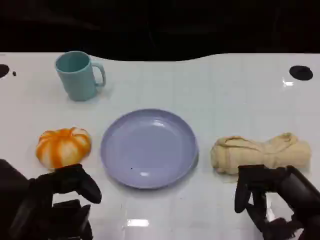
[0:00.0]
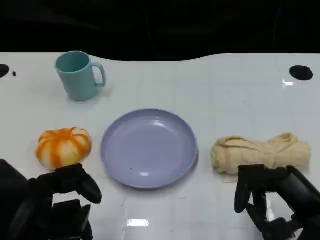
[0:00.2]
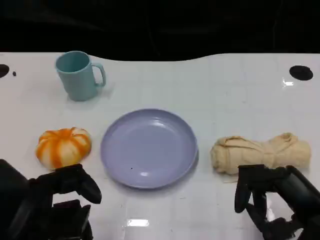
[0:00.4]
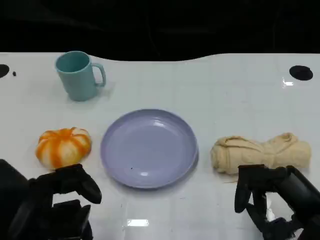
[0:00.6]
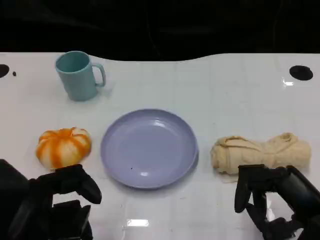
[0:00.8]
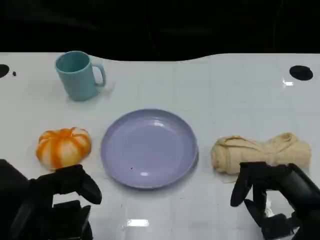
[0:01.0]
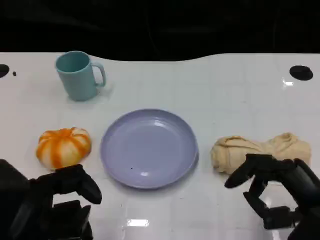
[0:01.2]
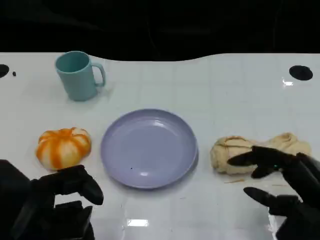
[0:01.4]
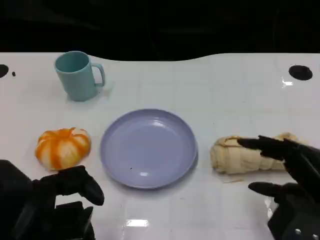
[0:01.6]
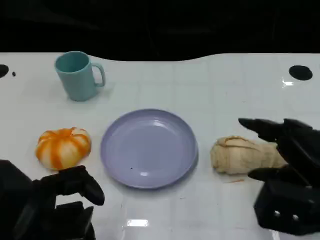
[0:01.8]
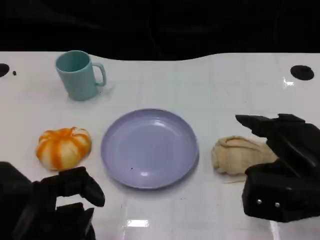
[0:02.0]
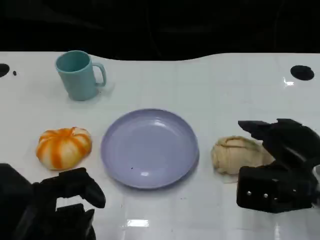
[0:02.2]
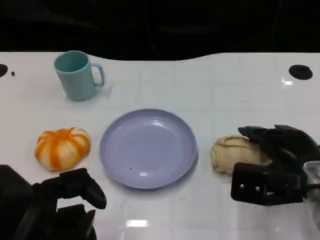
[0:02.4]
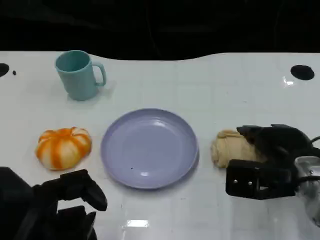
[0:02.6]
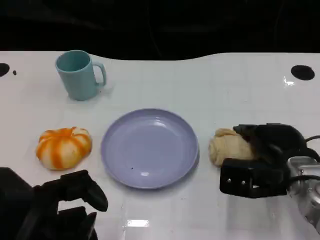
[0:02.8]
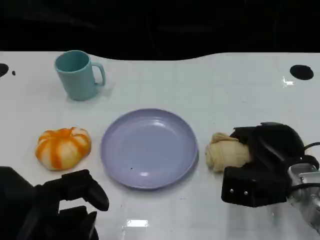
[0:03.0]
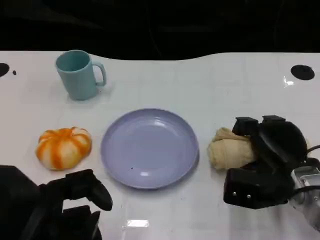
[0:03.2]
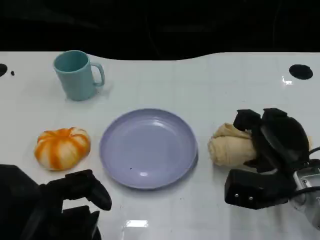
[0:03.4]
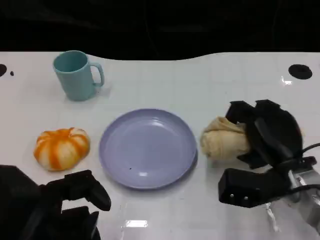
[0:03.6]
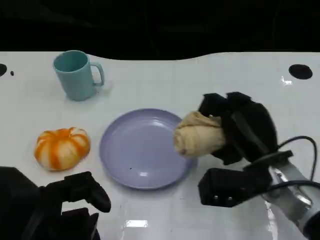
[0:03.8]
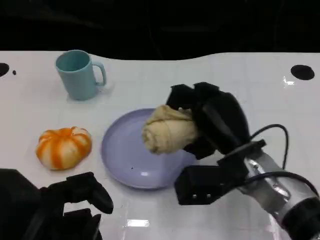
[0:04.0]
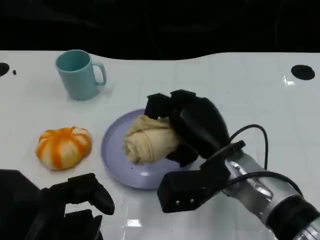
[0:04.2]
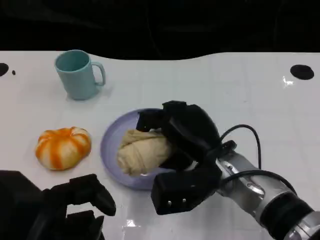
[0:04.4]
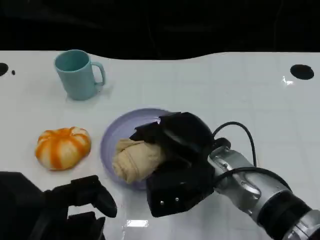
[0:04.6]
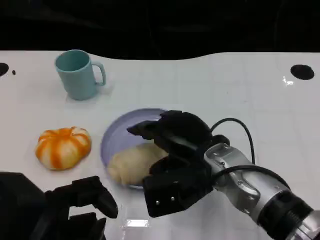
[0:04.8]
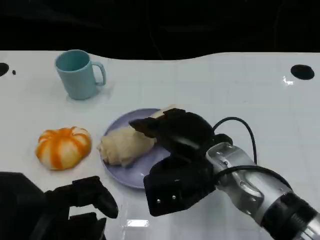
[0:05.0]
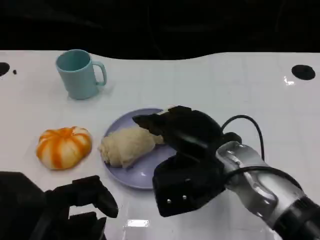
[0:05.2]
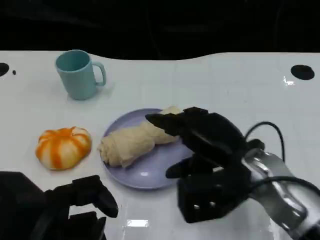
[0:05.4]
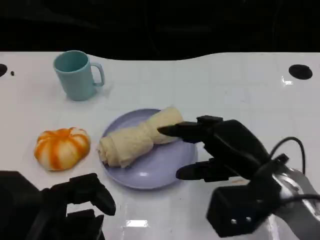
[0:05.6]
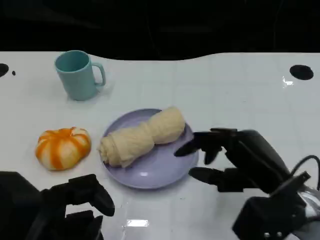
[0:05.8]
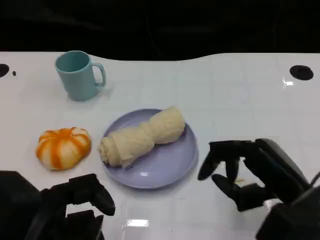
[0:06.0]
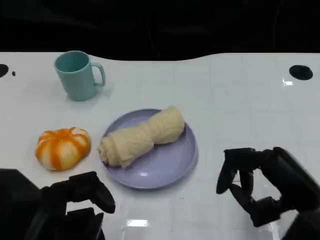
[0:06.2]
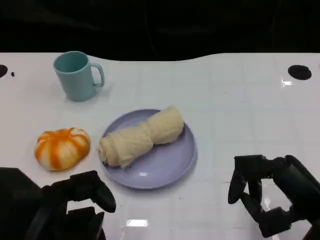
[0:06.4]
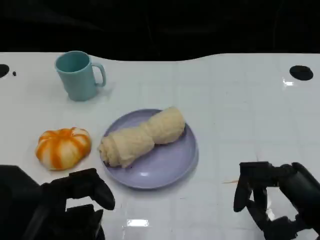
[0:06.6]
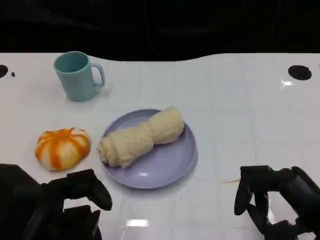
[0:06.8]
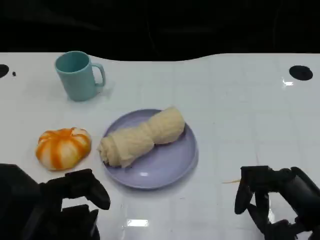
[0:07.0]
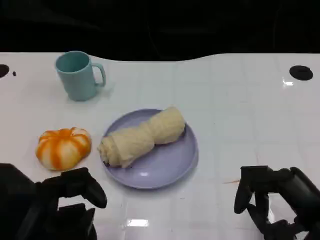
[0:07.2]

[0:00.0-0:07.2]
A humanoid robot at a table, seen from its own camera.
Task of the whole recording: Grasp the towel on the left side of the plate with the left hand and place it into the plate.
0:00.0 to 0:01.4: The hands stay close to where they were, moving slightly.
0:01.4 to 0:02.8: The right hand shifts about 10 cm forward and downward.
0:02.8 to 0:04.4: The right hand travels to the left by roughly 10 cm.
0:04.4 to 0:05.8: The right hand is displaced to the right and backward by some 10 cm.
0:05.8 to 0:07.2: The right hand moves backward, about 5 cm.

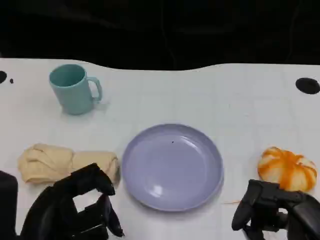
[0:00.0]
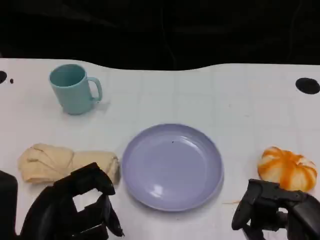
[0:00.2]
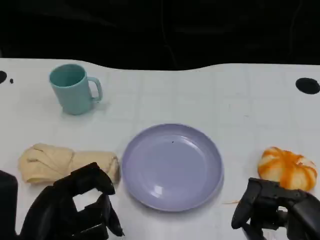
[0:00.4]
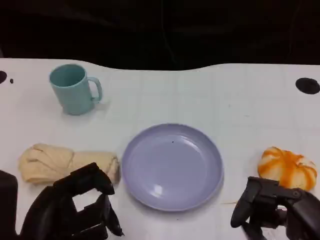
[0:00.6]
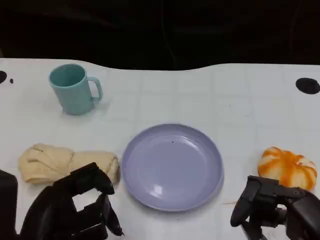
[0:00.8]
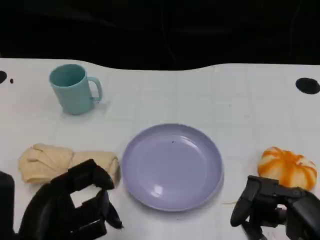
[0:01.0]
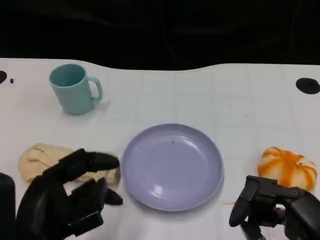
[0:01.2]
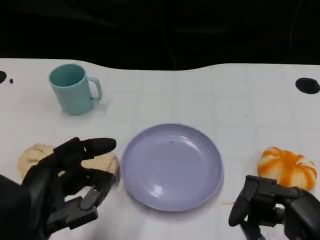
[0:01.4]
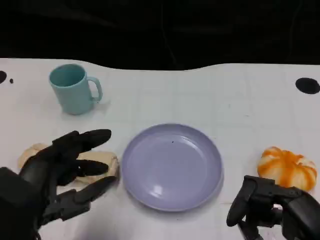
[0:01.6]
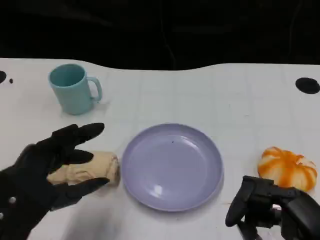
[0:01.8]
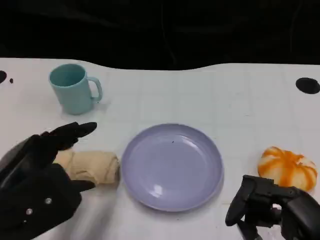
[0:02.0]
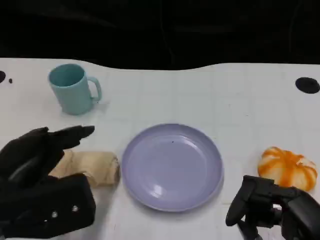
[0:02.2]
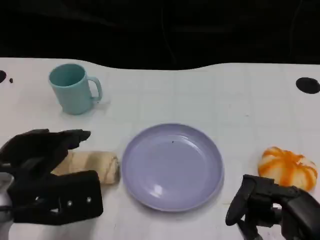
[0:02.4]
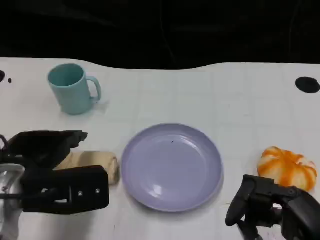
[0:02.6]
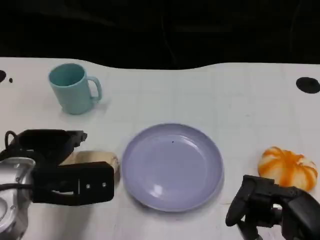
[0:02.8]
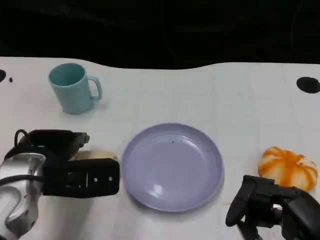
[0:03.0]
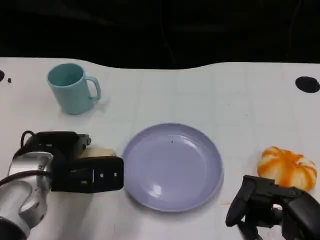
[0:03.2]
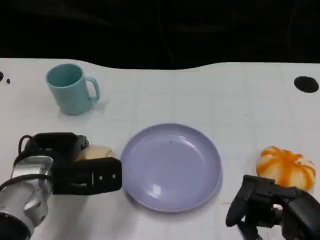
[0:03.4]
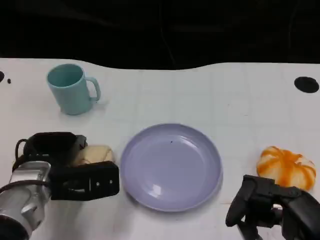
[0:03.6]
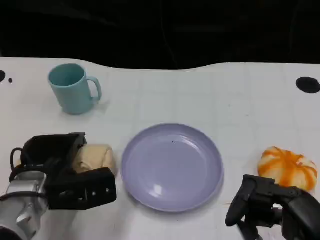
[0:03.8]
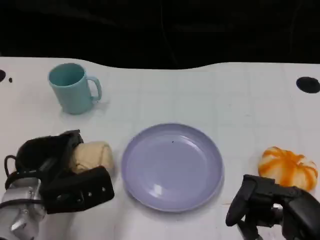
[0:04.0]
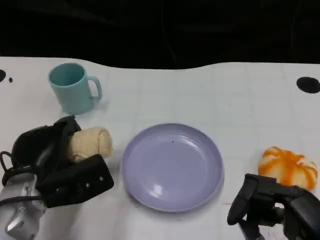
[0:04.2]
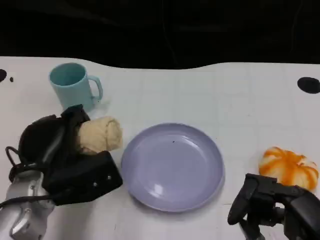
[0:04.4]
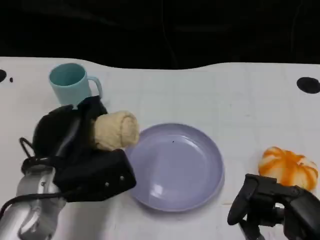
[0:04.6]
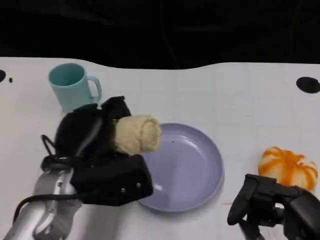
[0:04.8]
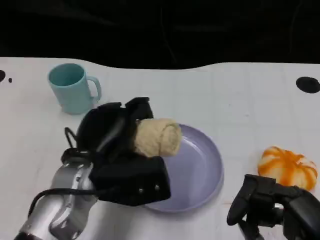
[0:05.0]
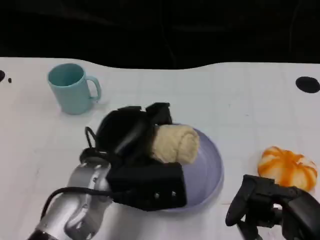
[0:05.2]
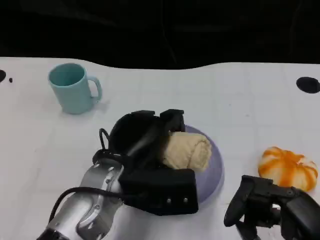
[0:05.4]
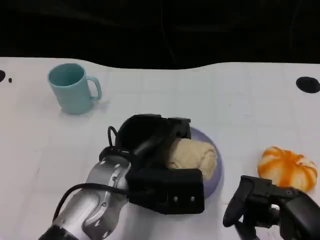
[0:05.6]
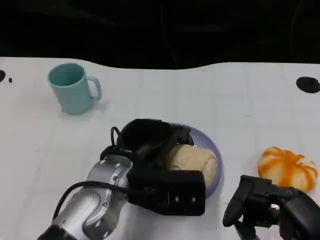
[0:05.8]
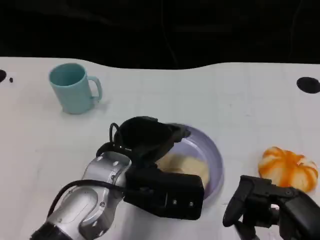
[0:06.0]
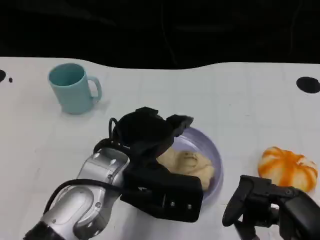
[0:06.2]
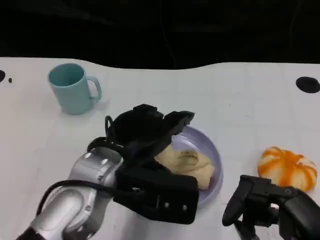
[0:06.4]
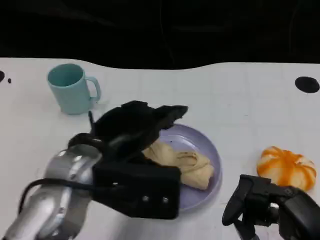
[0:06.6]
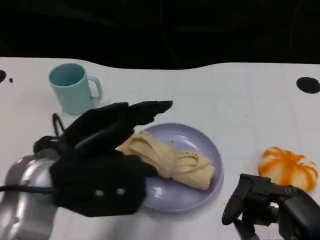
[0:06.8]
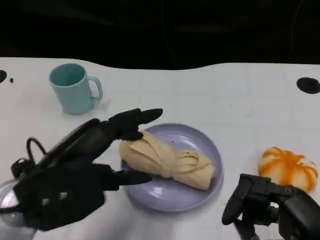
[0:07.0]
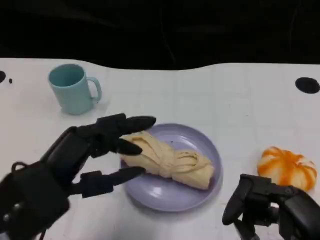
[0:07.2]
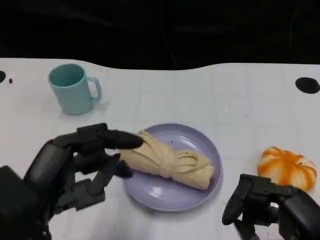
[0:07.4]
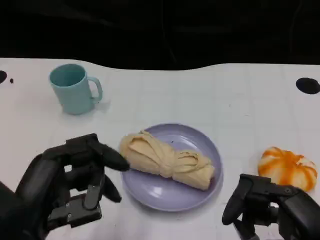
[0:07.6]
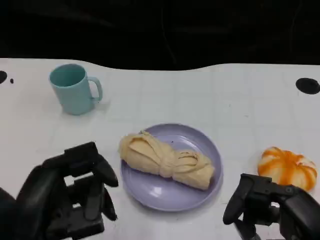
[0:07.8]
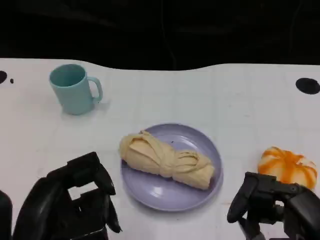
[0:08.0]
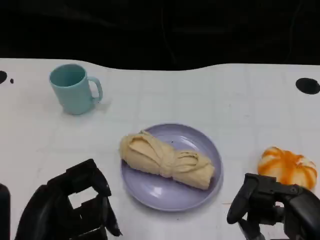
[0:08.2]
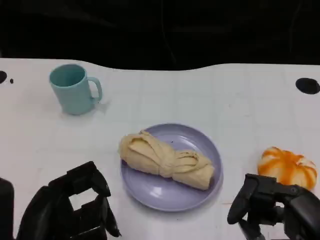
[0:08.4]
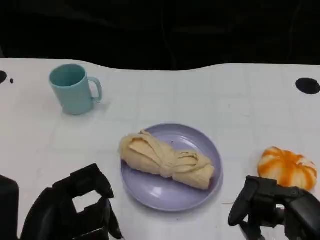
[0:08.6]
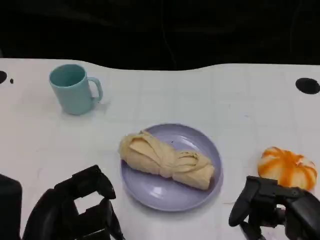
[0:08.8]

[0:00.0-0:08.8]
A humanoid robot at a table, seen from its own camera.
Task of the whole recording: Grasp the towel on the left side of the plate with the left hand and place it into the plate.
0:01.4 to 0:03.0: The left hand is displaced forward by about 10 cm.
0:04.4 to 0:05.8: The left hand shifts approximately 10 cm to the right.
0:05.8 to 0:07.4: The left hand travels to the left and backward by approximately 15 cm.
